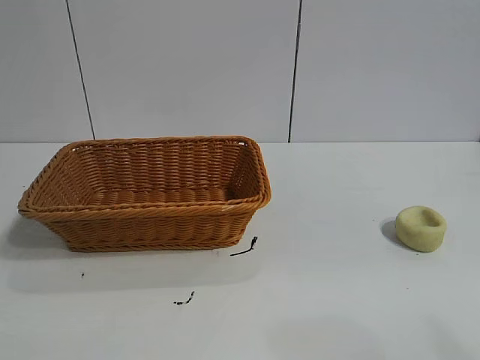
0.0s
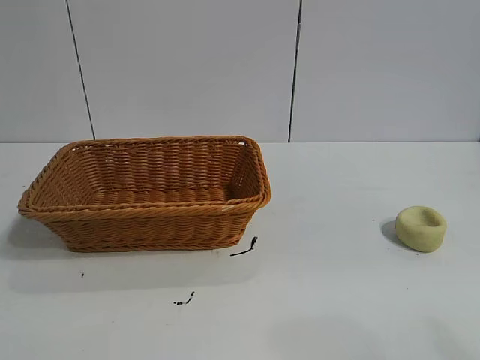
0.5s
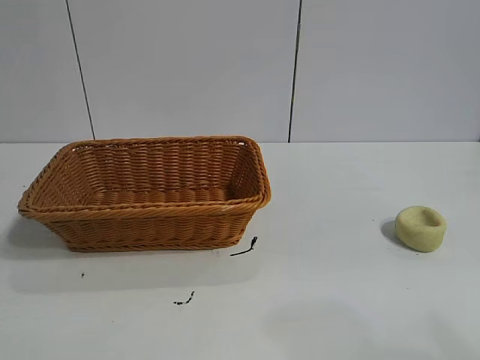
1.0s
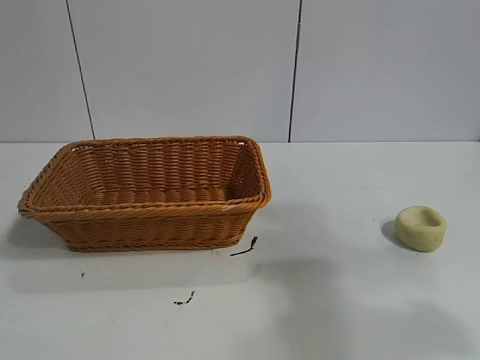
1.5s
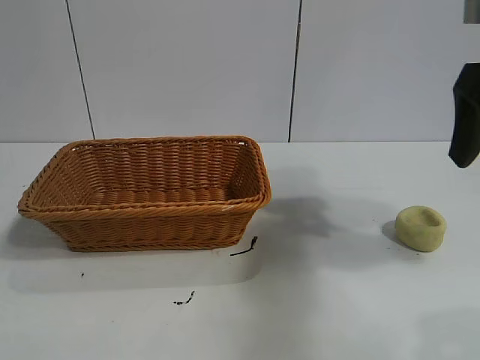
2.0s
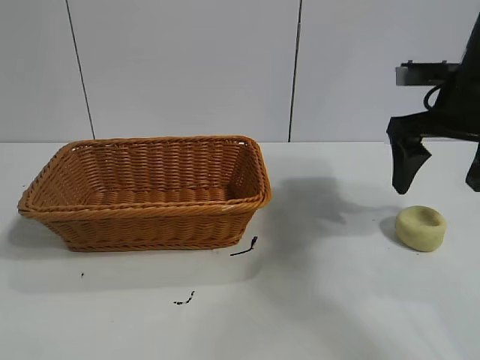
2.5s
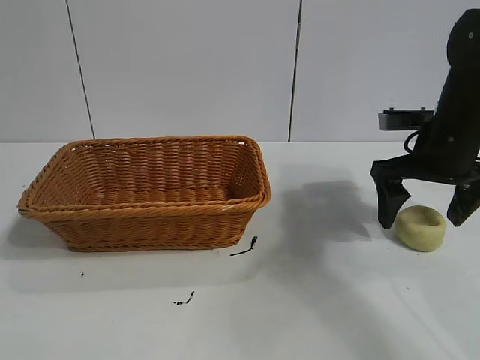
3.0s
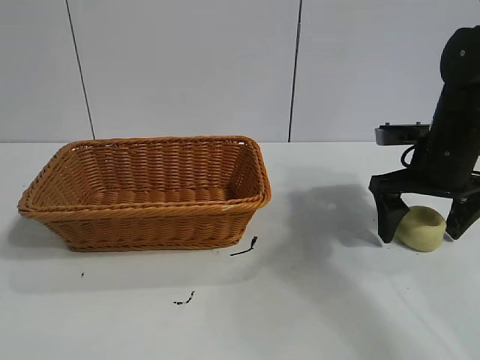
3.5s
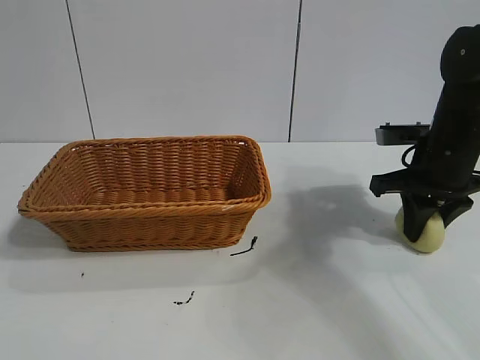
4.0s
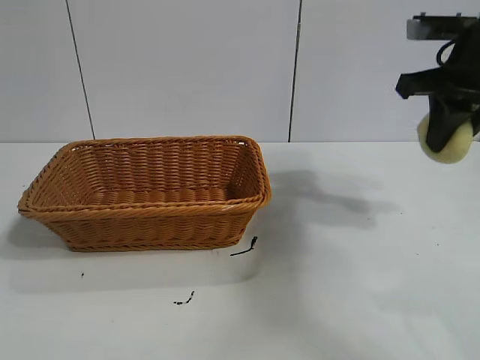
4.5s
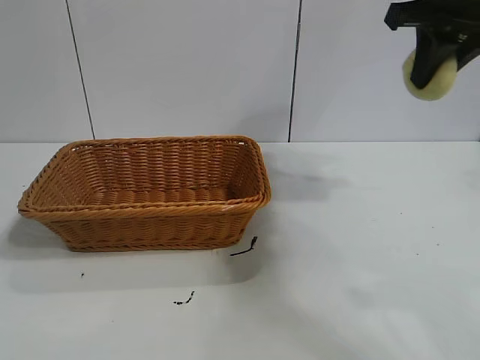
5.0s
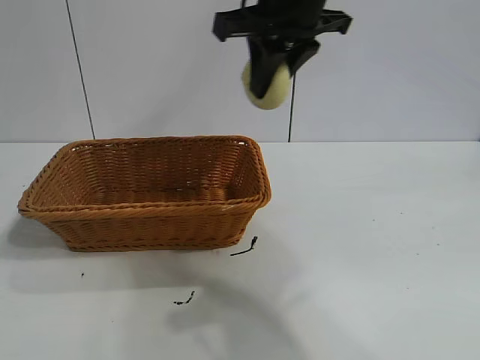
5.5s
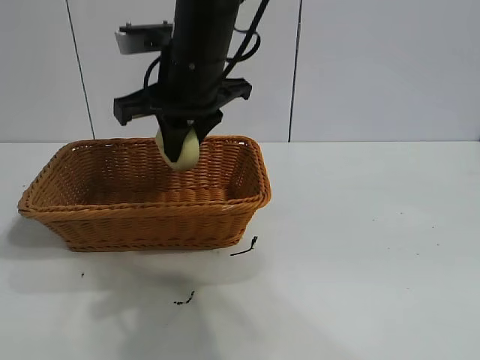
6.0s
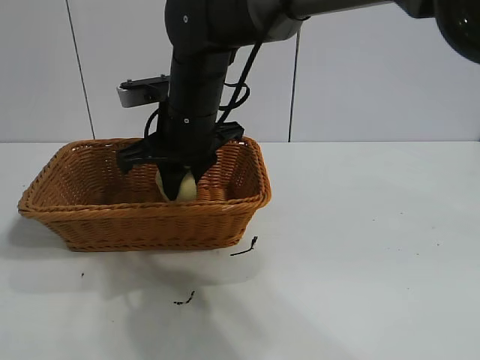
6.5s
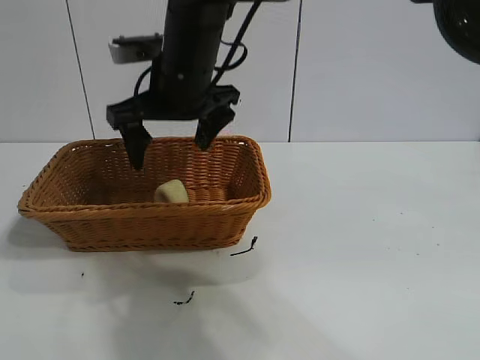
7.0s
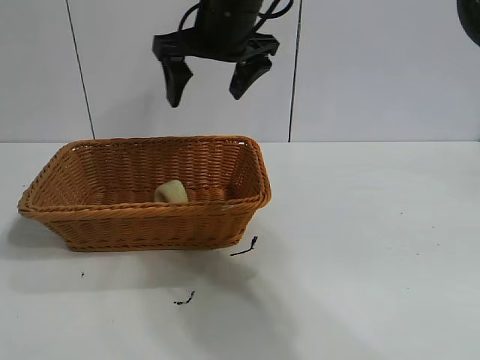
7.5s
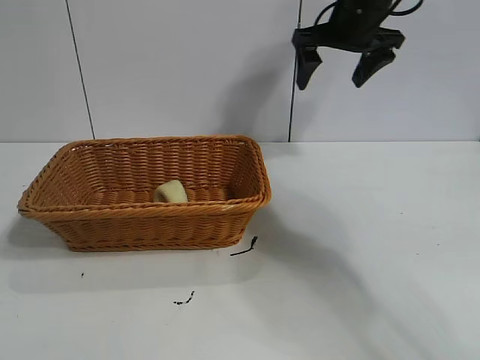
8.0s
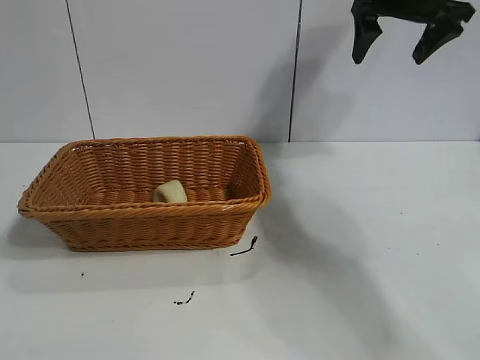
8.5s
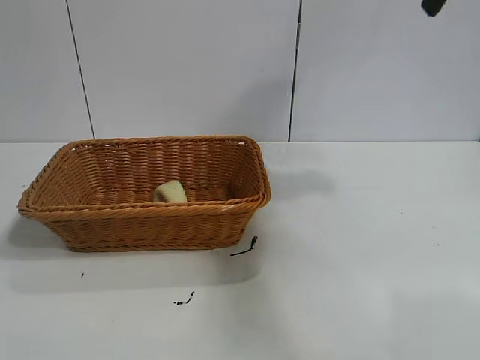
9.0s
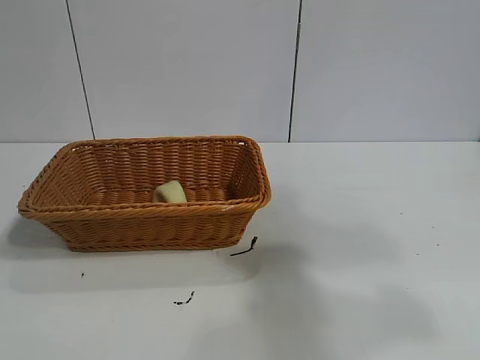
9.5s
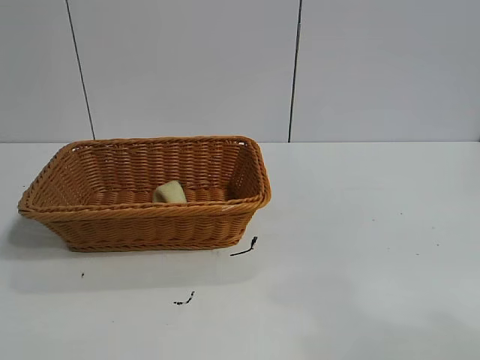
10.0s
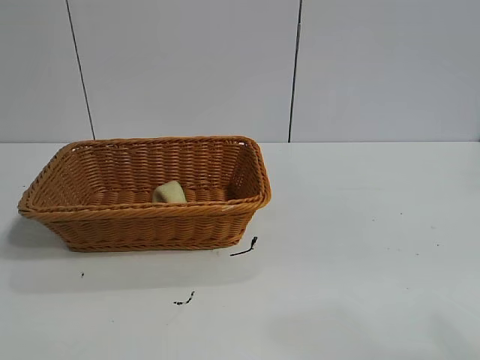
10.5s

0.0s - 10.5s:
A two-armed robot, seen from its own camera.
Task of the whole recording: pick up the egg yolk pastry and put it into the basket.
Step, 1.0s - 3.5s: Grasp egg yolk pastry with right gripper.
Step, 4.5s - 6.5s: Place the egg yolk pastry in the basket with right gripper.
